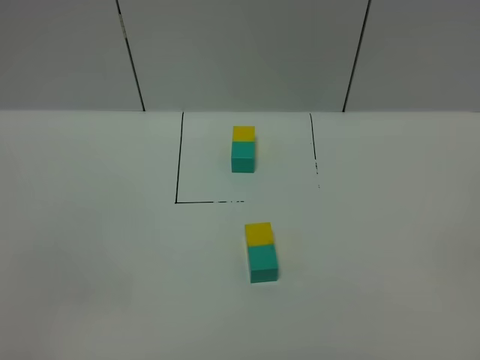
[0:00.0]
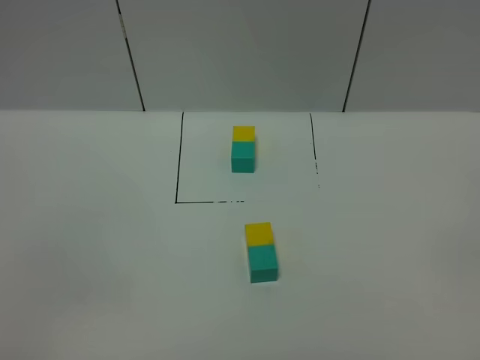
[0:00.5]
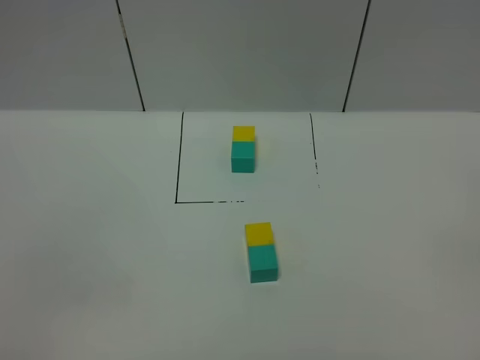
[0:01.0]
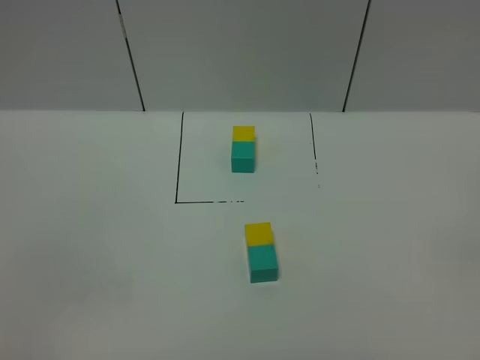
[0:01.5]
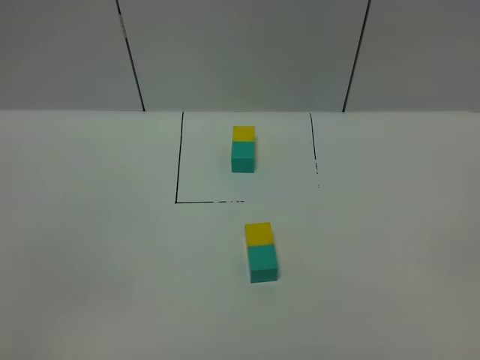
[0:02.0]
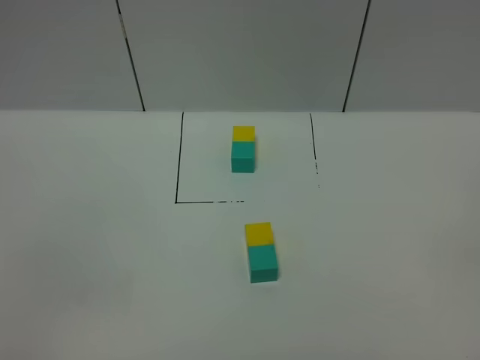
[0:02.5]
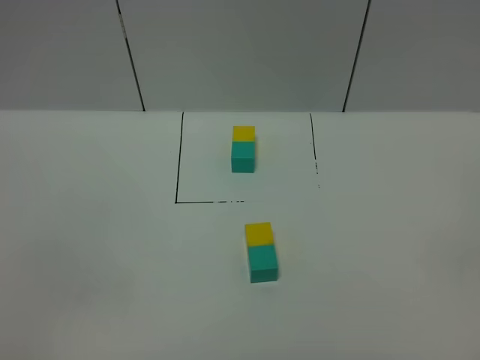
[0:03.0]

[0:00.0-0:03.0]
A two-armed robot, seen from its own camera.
Task of the whole recording: According to the building block template in front, assemble the scattered blocks together.
0:00.0 to 0:01.5: Both grippers stay put.
